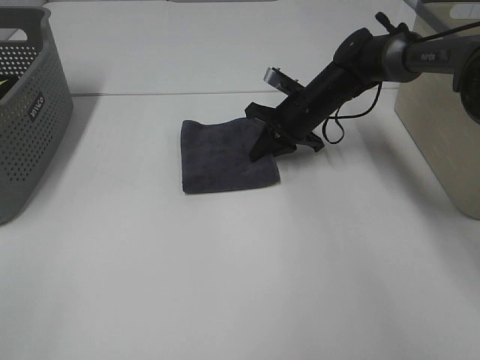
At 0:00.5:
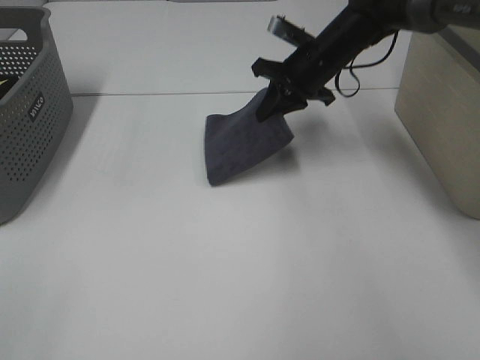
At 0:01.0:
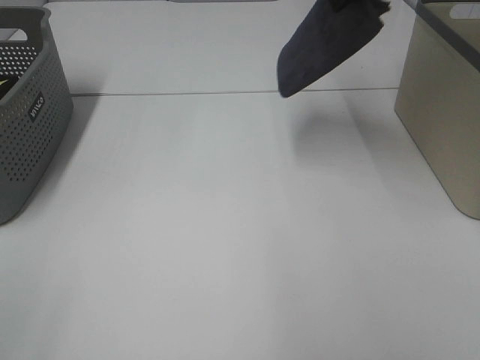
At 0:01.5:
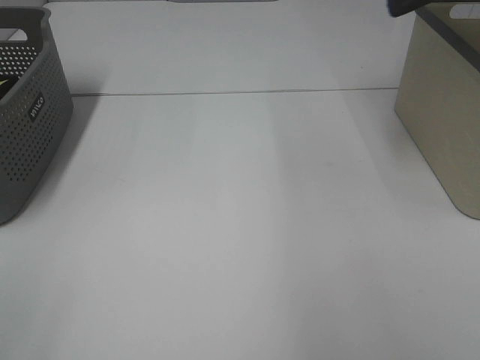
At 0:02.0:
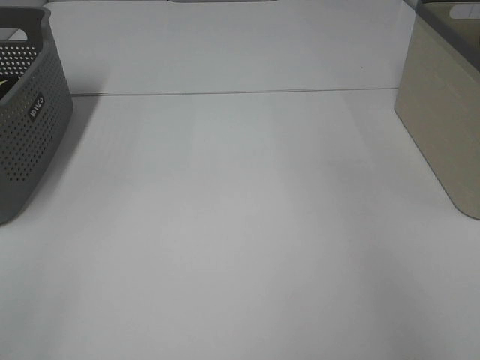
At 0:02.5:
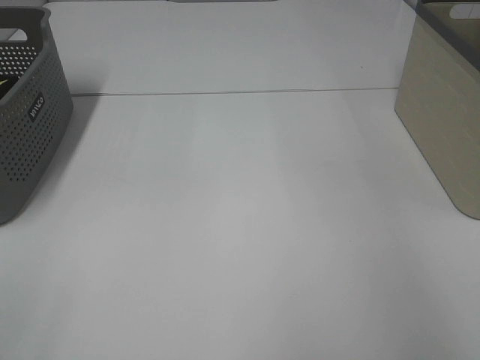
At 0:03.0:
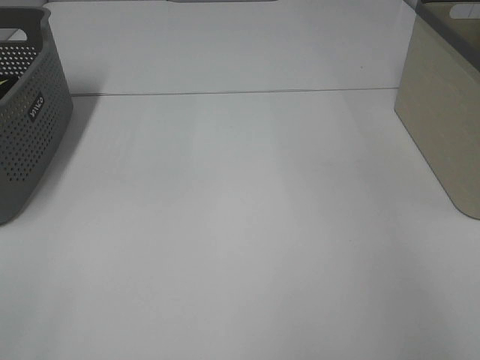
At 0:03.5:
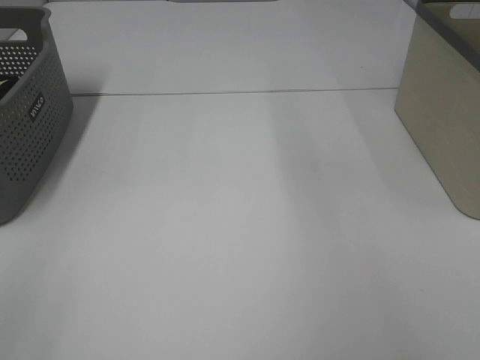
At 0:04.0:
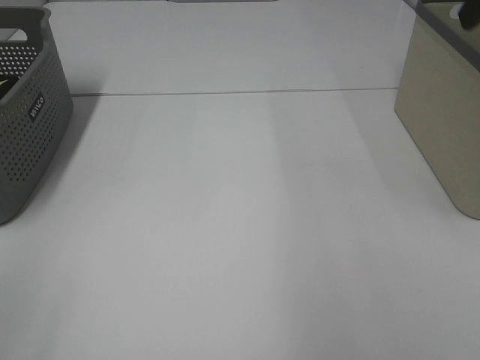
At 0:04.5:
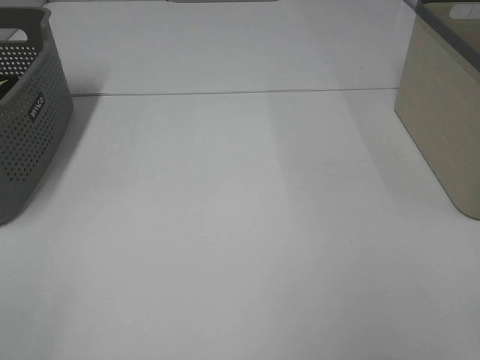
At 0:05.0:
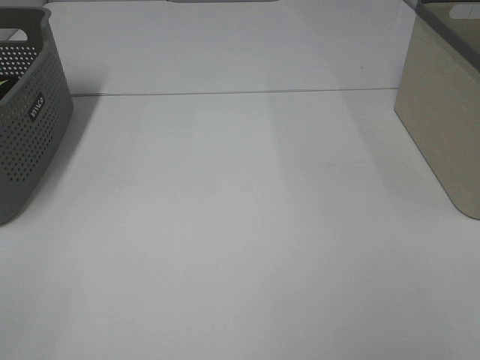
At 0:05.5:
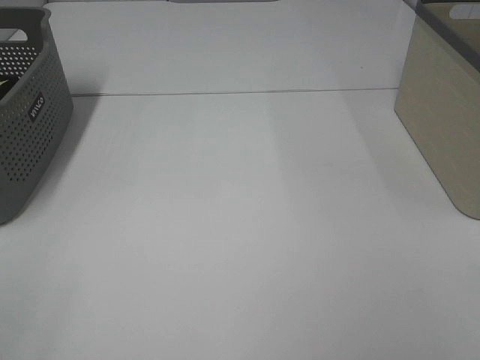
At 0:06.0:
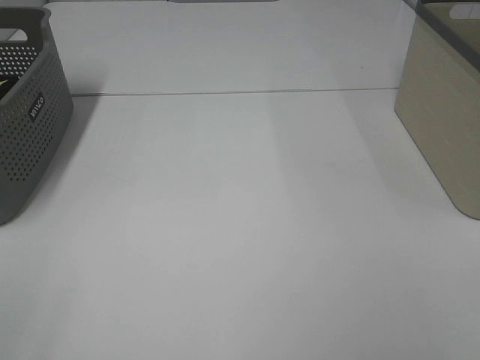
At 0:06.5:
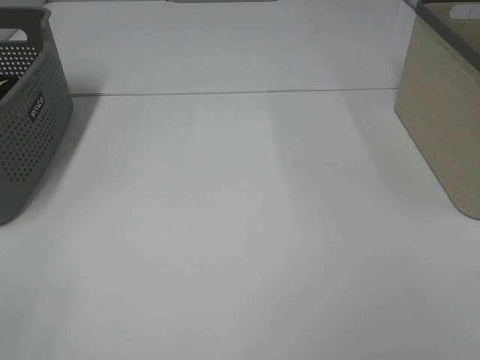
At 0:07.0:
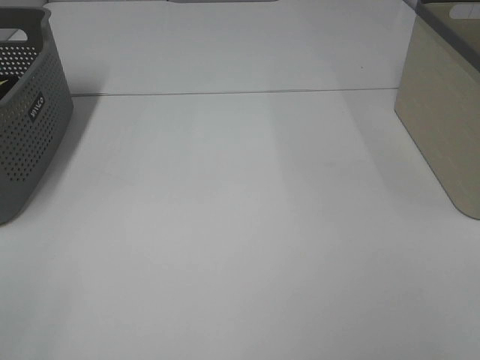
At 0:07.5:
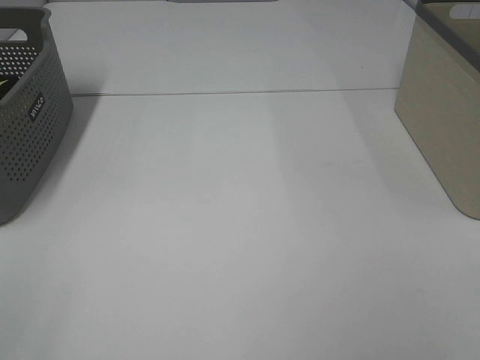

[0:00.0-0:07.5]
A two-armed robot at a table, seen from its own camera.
Step, 0:00.5 to 0:03.0: Right hand: place the grey towel in right basket.
0:00.0 to 0:02.0: The right gripper moves upward and to the right, roughly 40 cm.
0:05.5 to 0:07.5: Both grippers stay put.

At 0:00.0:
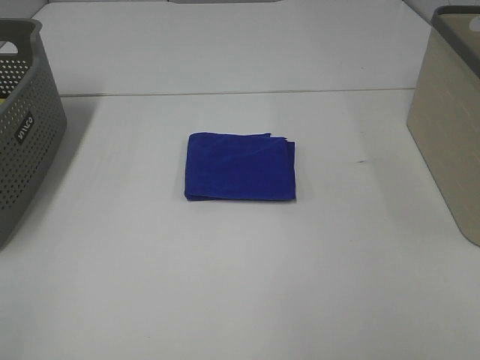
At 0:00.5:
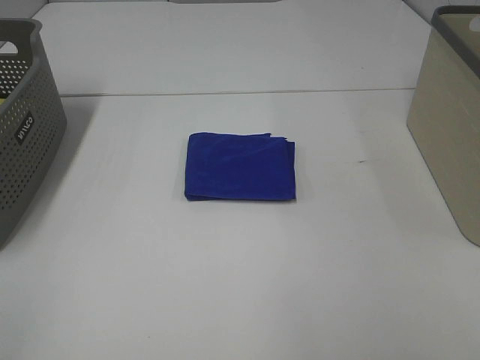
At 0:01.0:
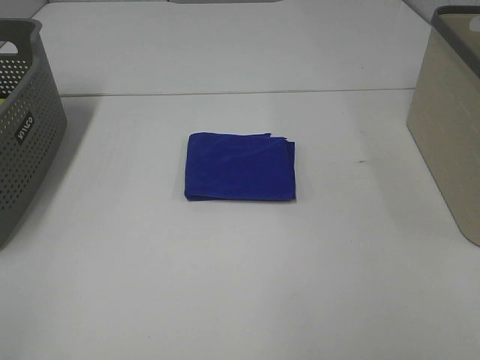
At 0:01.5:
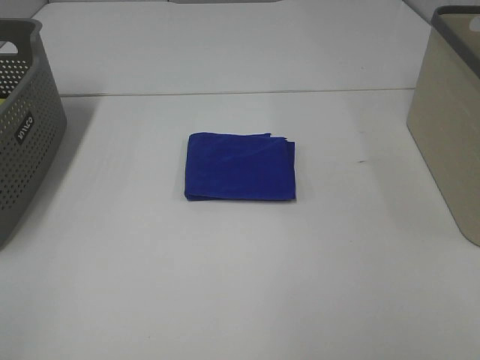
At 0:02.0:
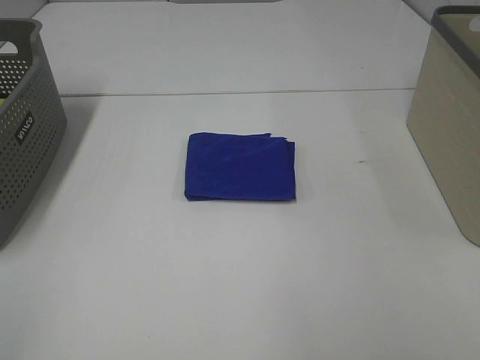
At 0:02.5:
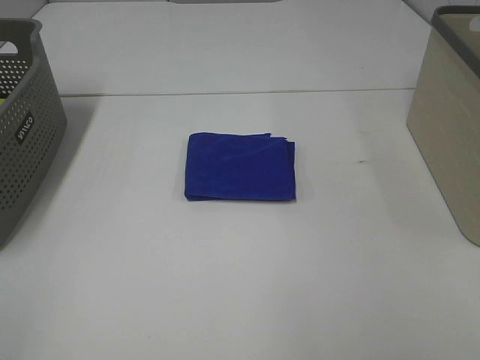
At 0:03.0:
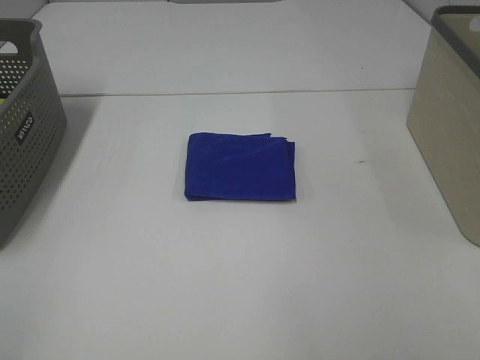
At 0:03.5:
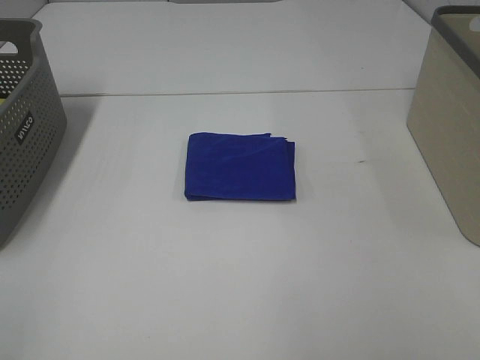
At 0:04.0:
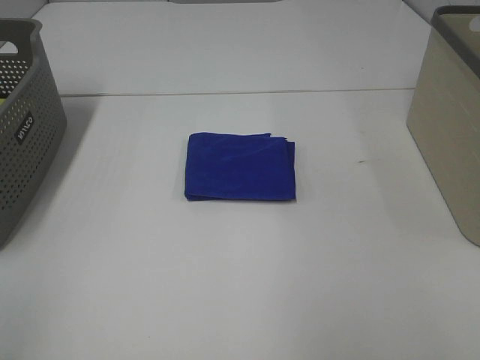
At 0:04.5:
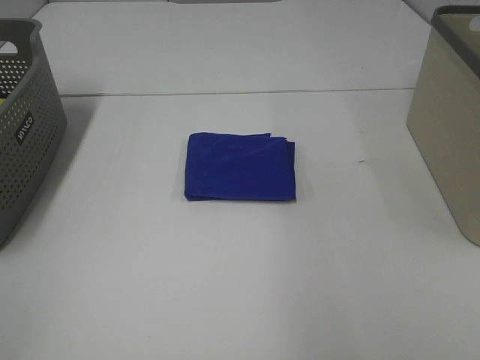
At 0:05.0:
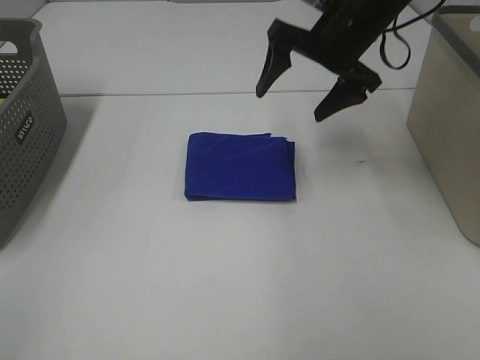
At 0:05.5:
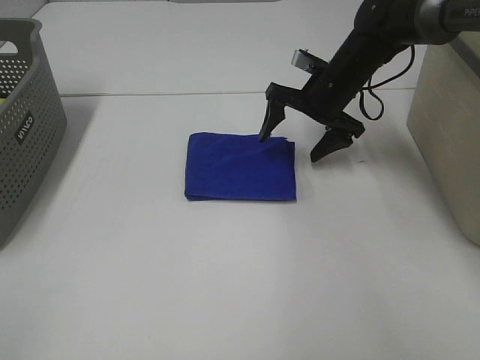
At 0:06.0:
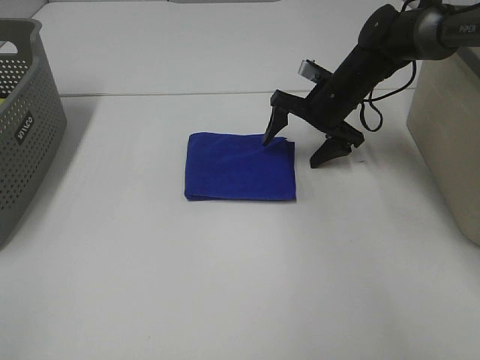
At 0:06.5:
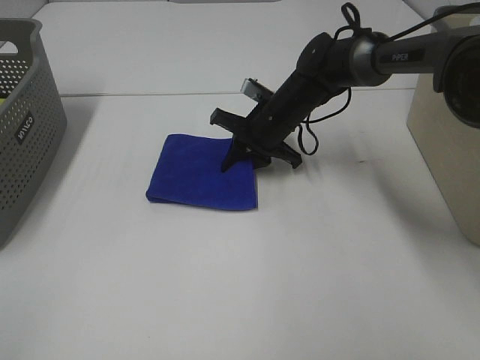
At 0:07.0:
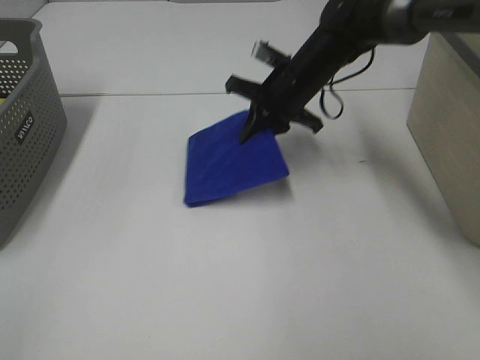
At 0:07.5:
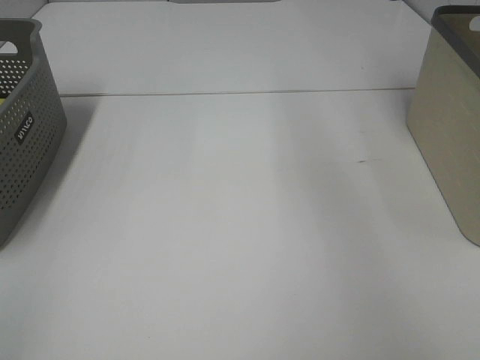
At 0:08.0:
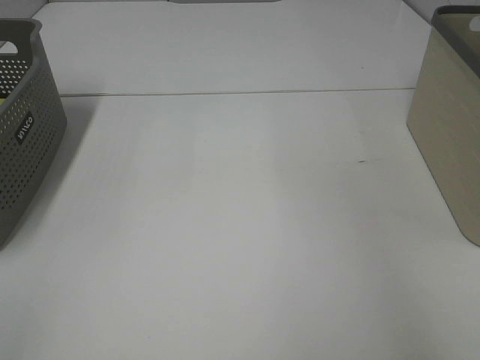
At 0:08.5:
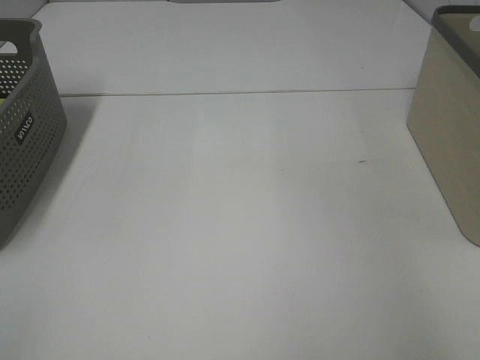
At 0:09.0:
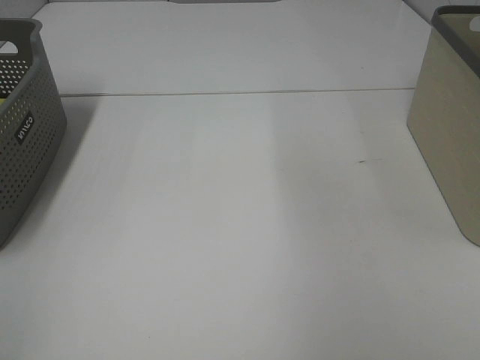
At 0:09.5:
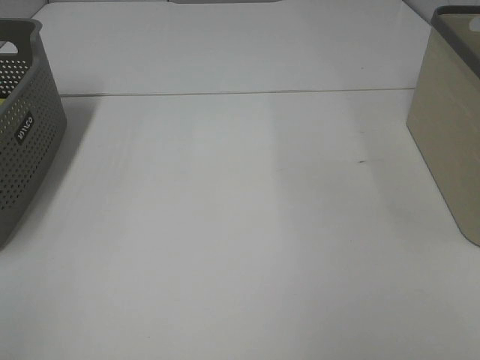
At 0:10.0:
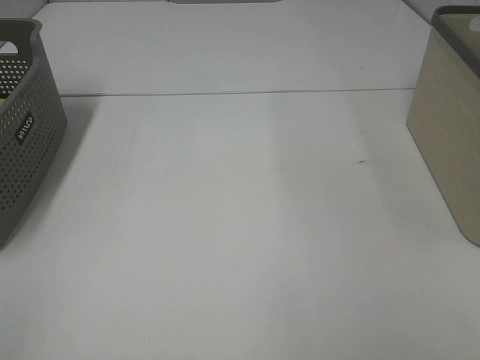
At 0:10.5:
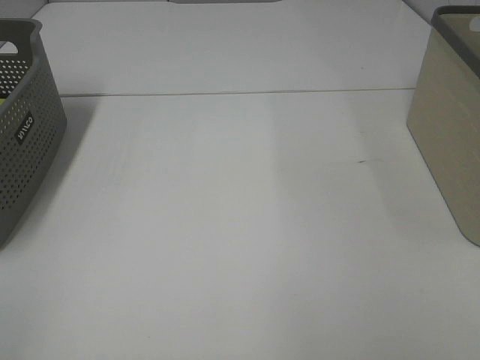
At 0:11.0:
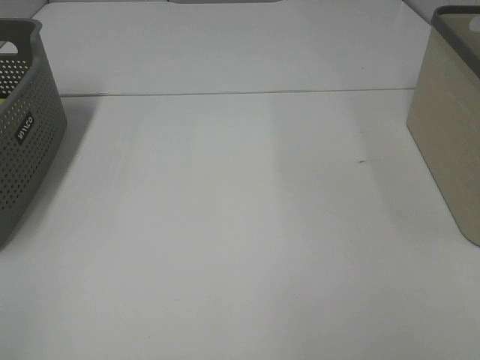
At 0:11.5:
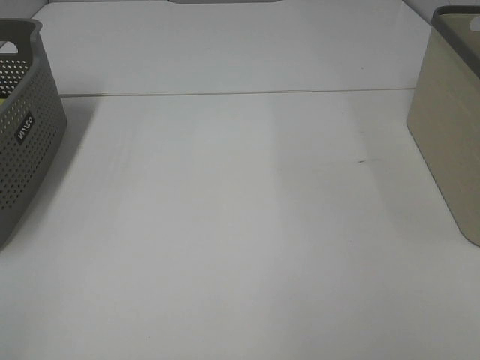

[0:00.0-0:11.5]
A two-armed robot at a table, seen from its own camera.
Step, 0:00.0 to 0:06.5: Right hand: grab the folded blue towel.
Step, 0:07.0 to 0:08.5: Right hand: place the blue towel in right basket.
0:00.0 to 0:02.0: The two grippers keep their place.
0:04.0 to 0:06.0: The right gripper goes about 50 cm forward and downward.
0:06.0 to 0:07.5: The right gripper shifts about 40 cm upward and to the right, and closes its fingers.

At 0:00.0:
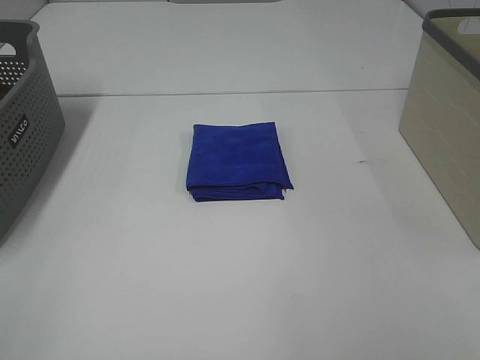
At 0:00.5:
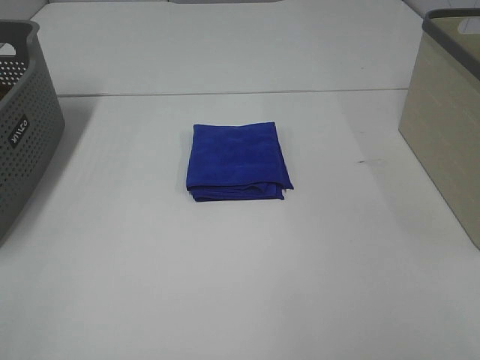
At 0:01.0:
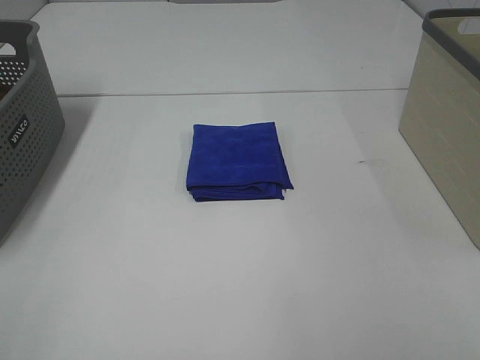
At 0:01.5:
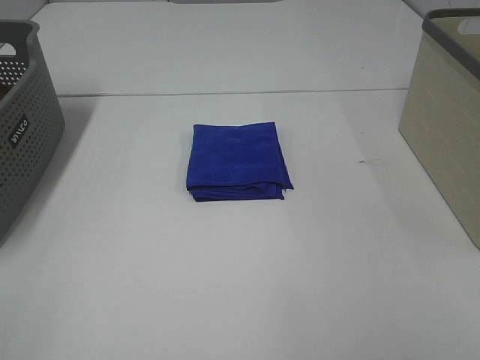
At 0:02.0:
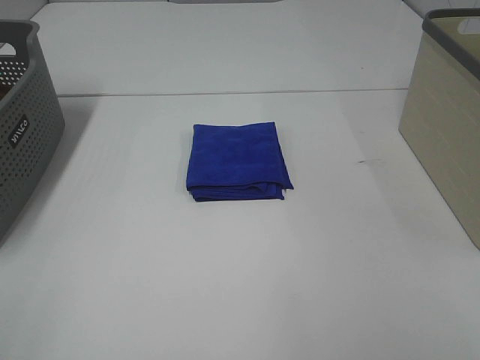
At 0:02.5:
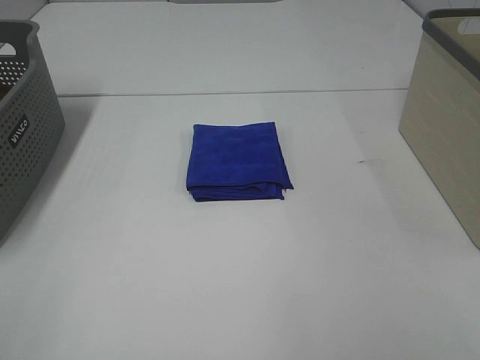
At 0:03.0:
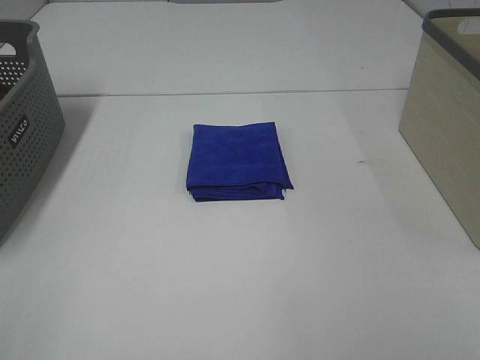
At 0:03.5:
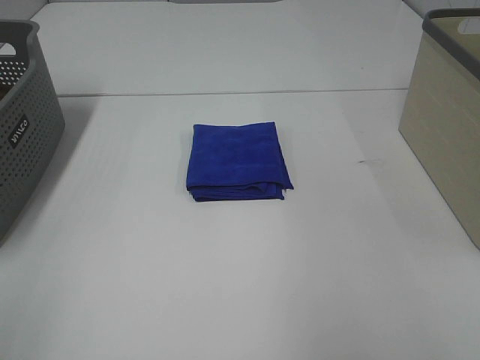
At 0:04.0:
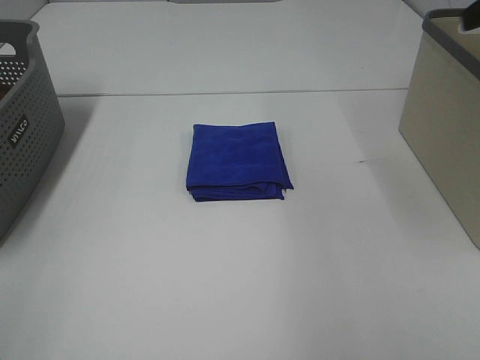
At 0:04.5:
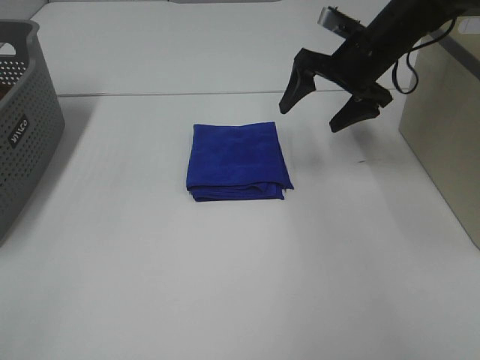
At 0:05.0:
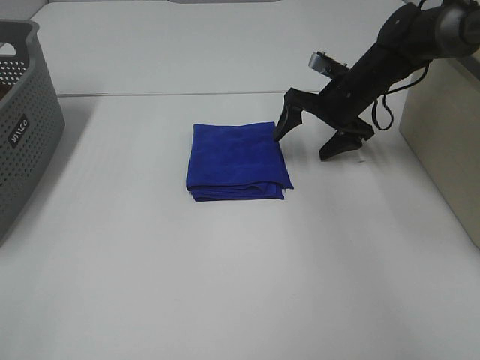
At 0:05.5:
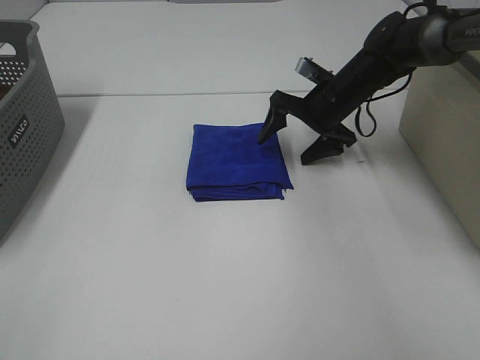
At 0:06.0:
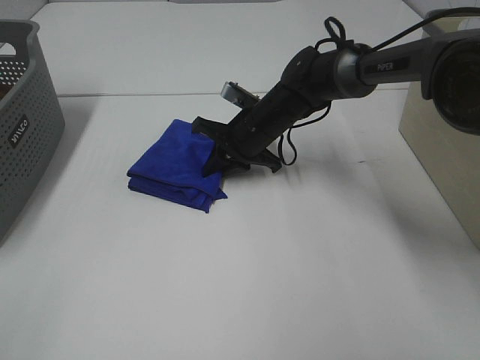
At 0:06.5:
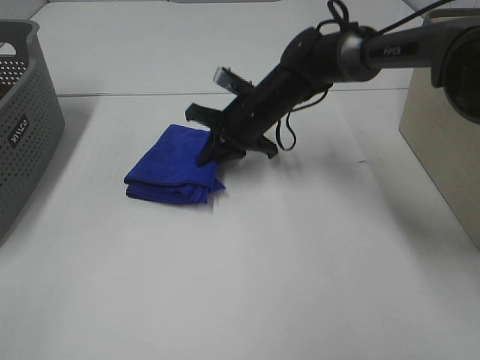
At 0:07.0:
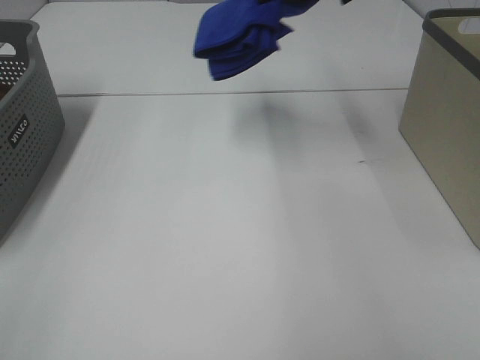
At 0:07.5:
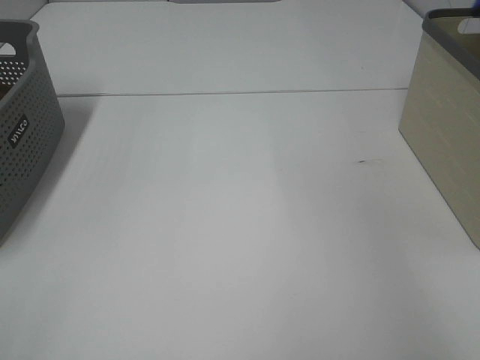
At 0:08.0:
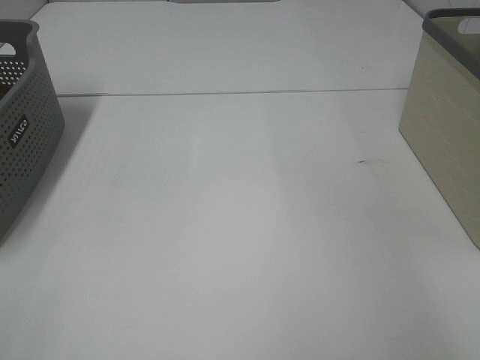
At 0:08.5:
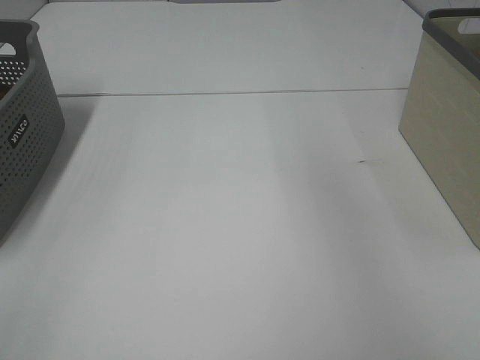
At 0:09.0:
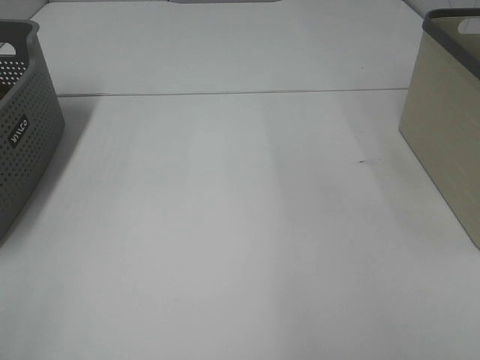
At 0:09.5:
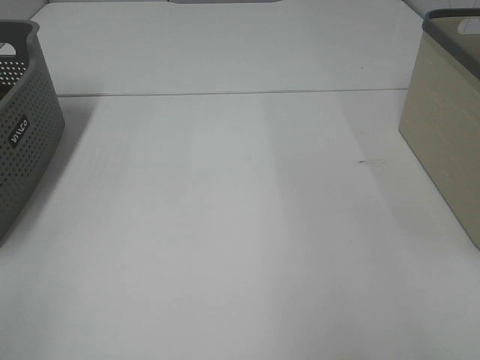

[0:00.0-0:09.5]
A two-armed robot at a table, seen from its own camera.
Step, 0:00.0 to 0:06.0: Right hand: grab the folded blue towel.
Step, 0:06.5 to 0:08.0: Right hand: place the blue towel in right basket.
0:00.0 to 0:02.0: Neither gripper changes place.
0:04.0 to 0:05.5: The right gripper shifts approximately 30 cm downward and forward.
0:05.5 to 0:07.5: The right gripper travels upward and to the right by about 40 cm, and closes its fingers.
